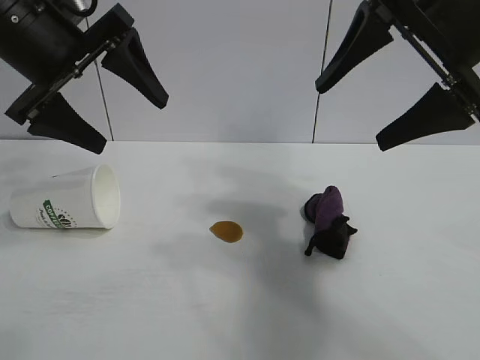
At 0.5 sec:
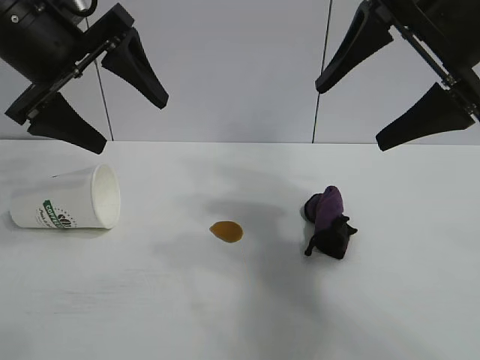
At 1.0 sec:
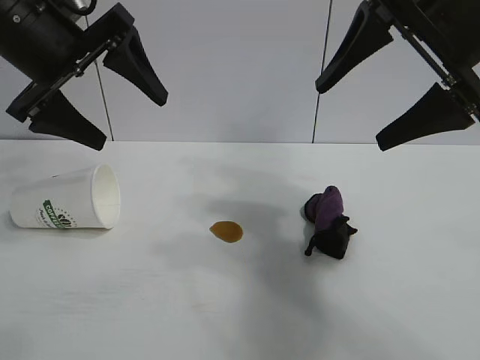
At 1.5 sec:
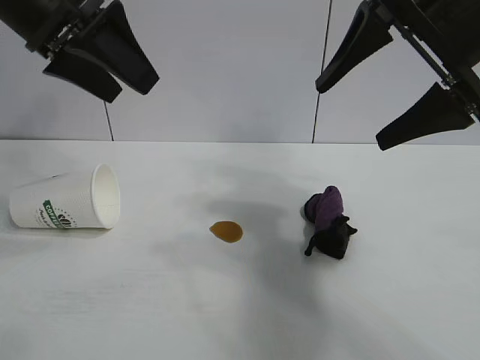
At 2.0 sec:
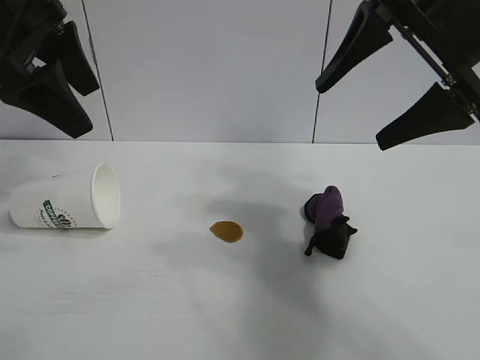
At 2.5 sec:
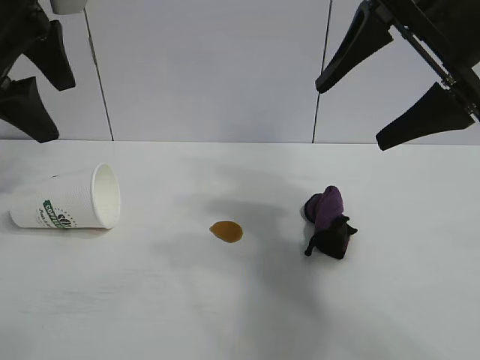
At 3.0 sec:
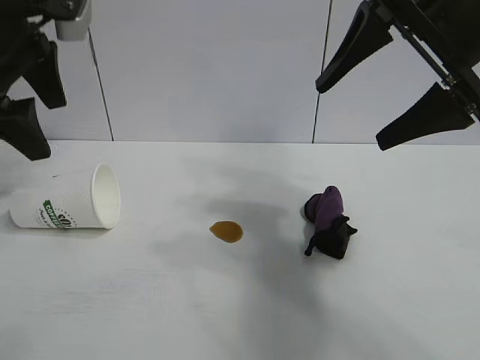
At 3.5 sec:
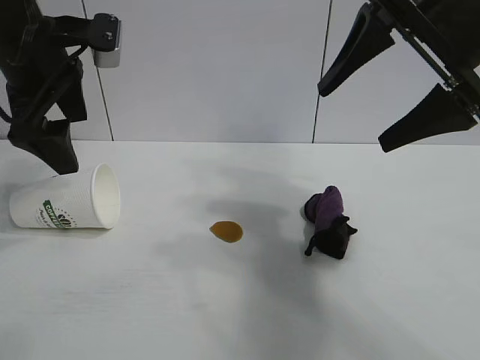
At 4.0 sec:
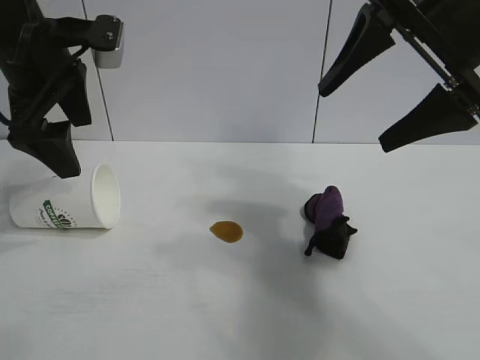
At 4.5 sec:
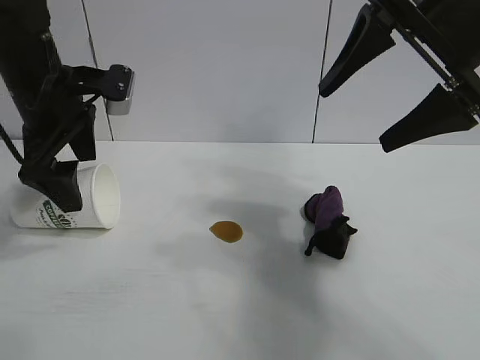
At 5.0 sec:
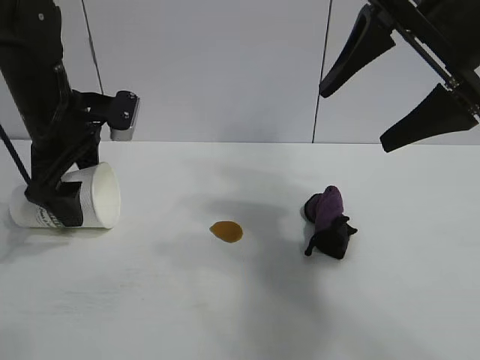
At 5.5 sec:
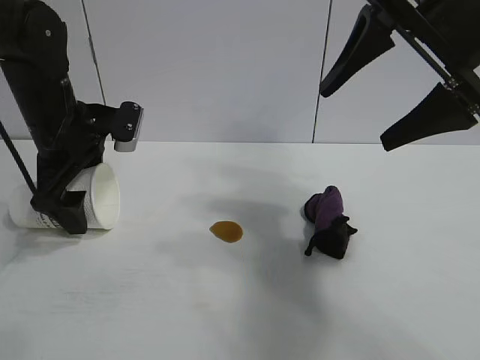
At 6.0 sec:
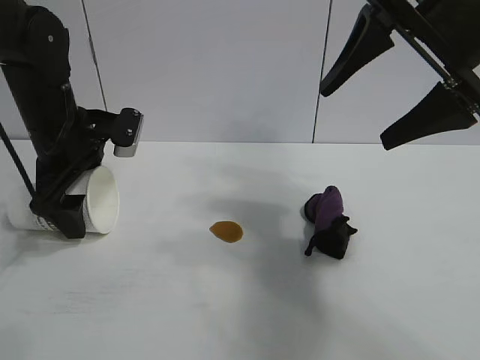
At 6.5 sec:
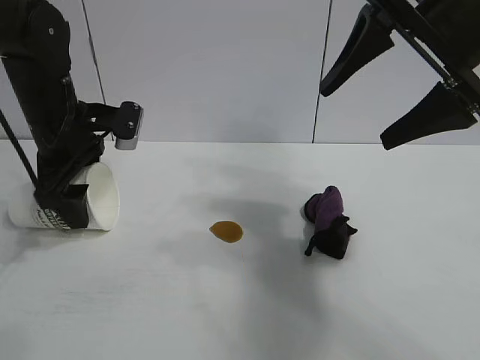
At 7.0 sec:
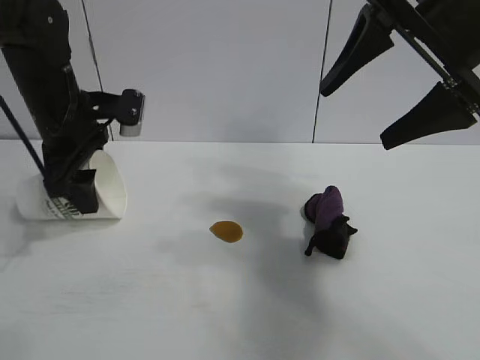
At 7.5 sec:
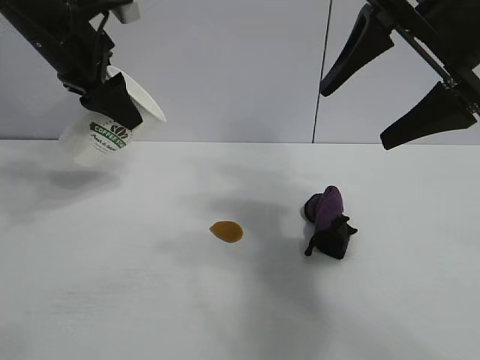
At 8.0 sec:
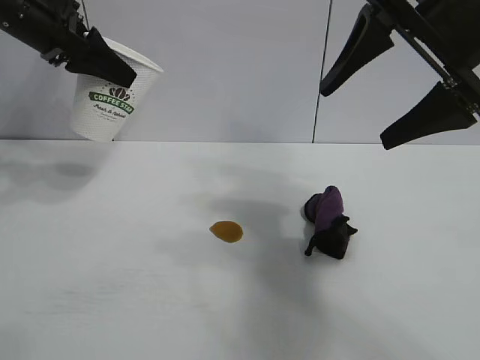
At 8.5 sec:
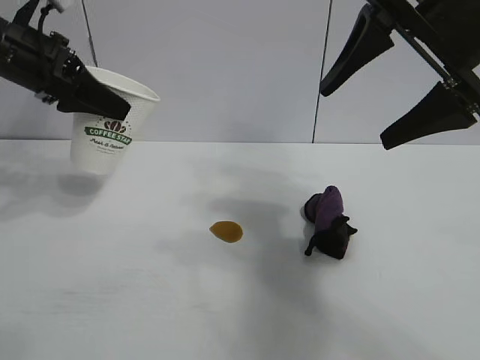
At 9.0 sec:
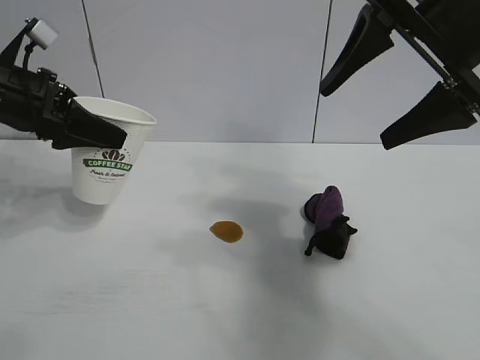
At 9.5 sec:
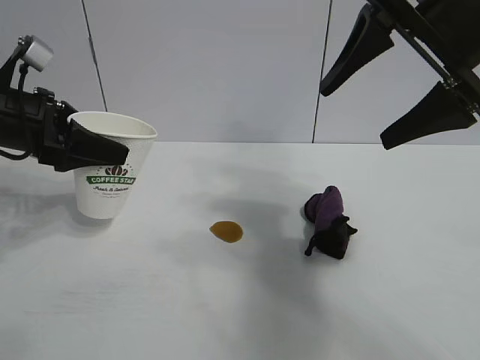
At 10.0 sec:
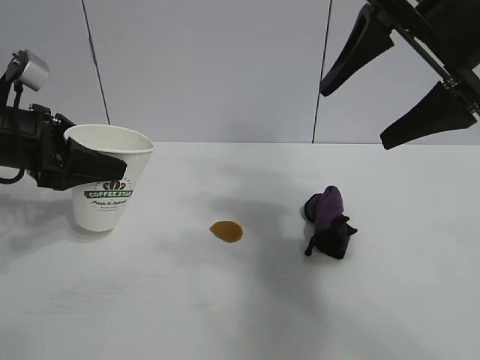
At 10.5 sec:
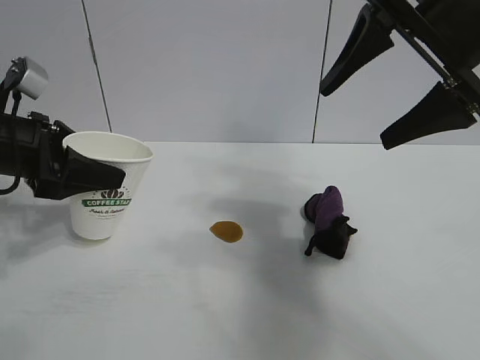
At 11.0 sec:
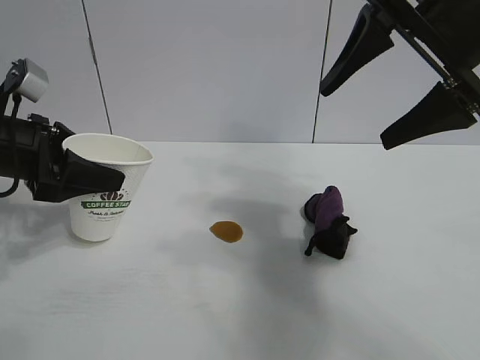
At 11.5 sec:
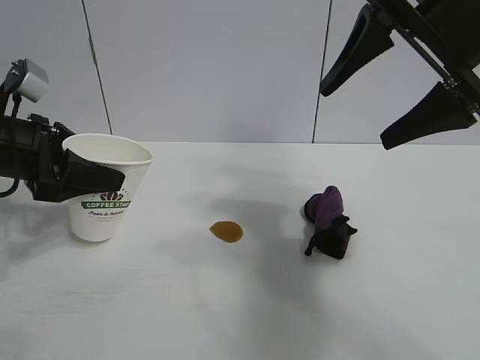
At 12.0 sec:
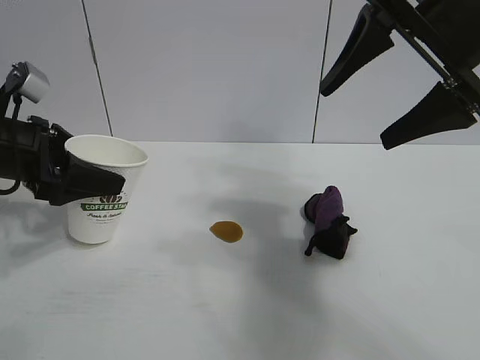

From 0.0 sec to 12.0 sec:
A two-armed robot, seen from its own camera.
Task of the whole recording: the left gripper pick up the fallen cup and place it upright, the right gripper grasp the black rag and wipe the stain on the table, the right gripper put the black rag back in its original position.
Step, from 1.0 sec to 6.5 sec: Grasp the paper cup with left gripper.

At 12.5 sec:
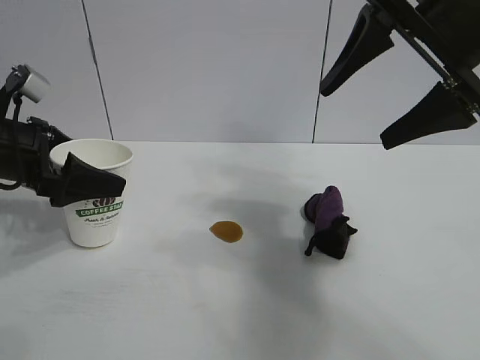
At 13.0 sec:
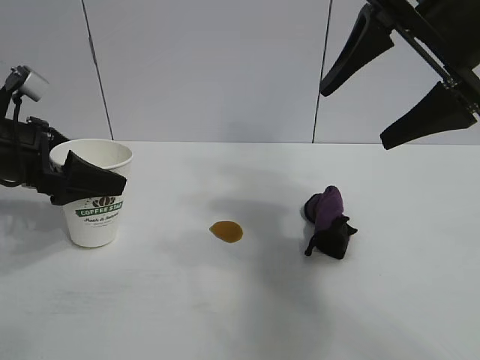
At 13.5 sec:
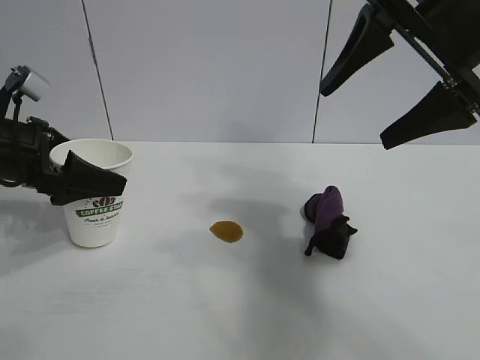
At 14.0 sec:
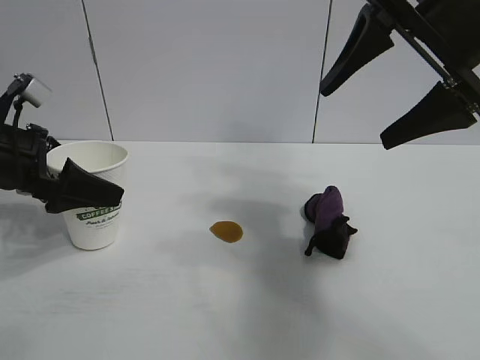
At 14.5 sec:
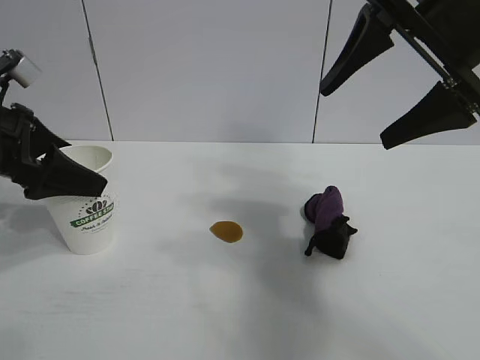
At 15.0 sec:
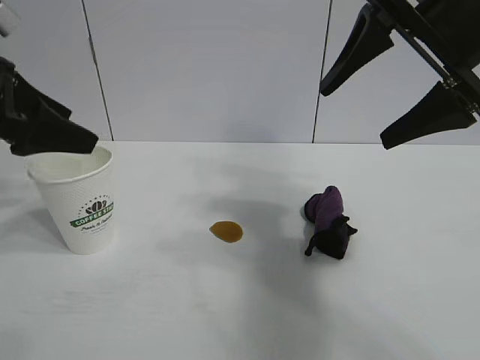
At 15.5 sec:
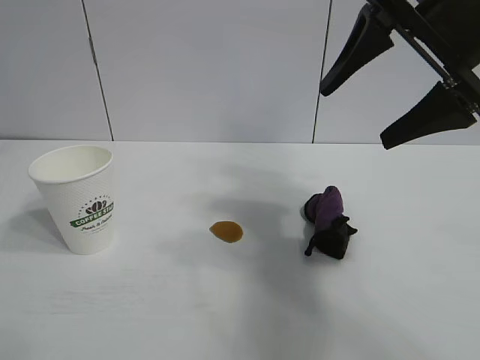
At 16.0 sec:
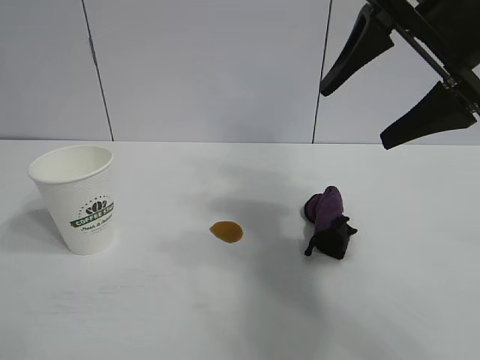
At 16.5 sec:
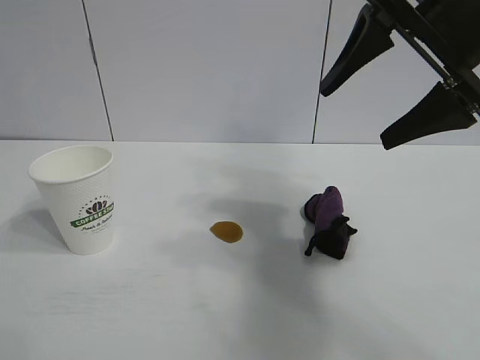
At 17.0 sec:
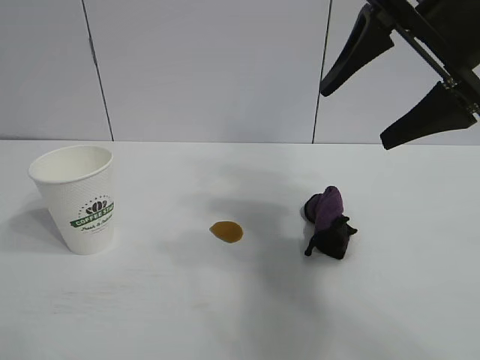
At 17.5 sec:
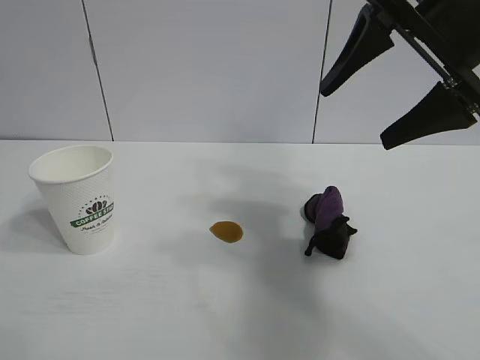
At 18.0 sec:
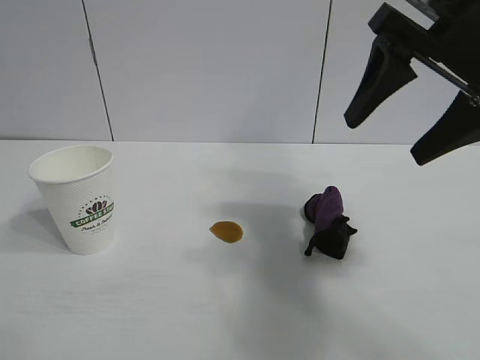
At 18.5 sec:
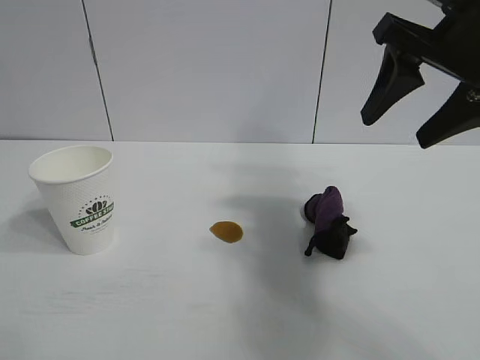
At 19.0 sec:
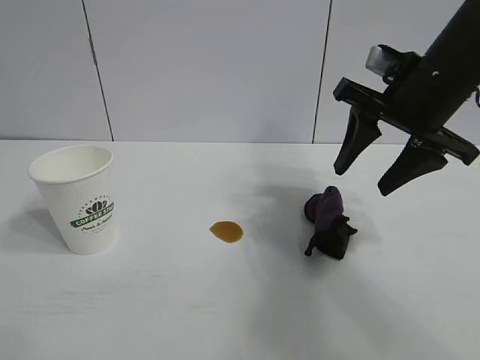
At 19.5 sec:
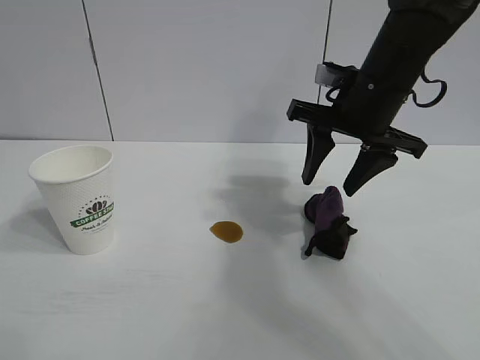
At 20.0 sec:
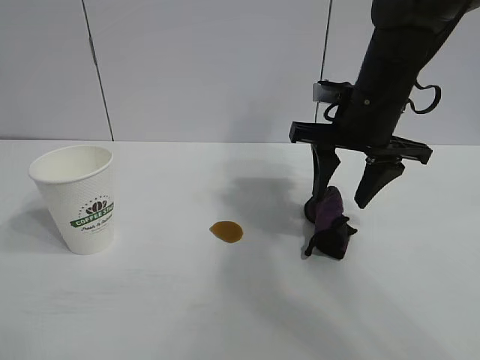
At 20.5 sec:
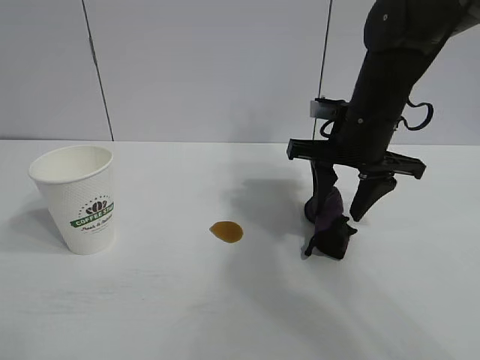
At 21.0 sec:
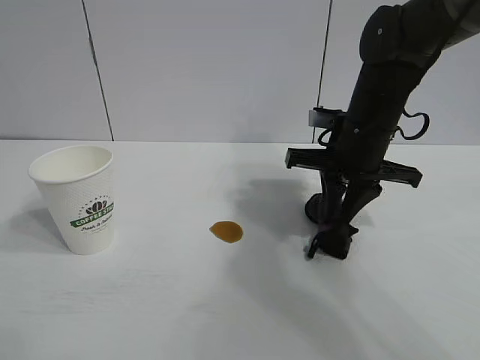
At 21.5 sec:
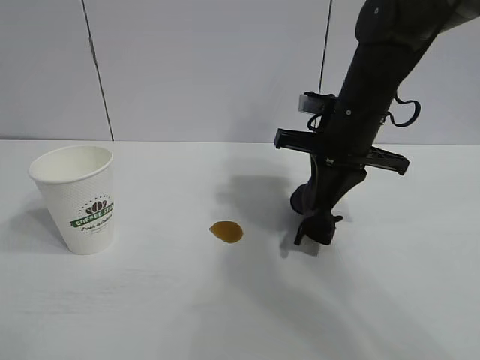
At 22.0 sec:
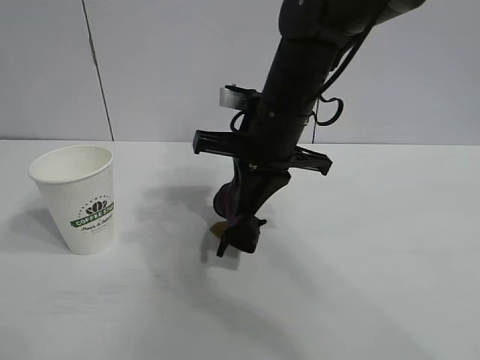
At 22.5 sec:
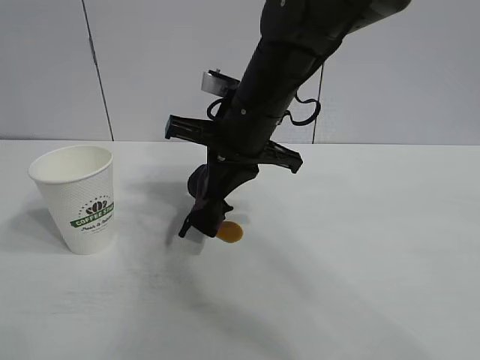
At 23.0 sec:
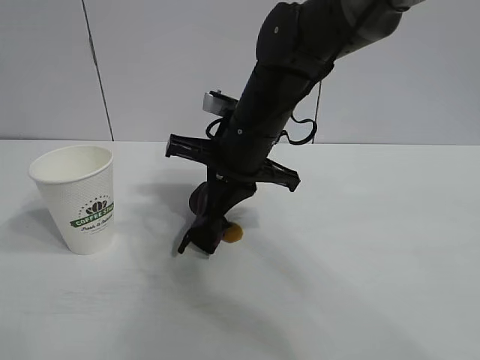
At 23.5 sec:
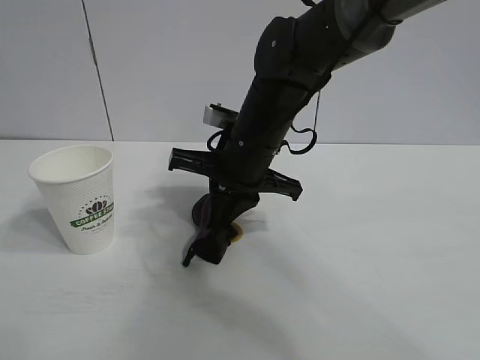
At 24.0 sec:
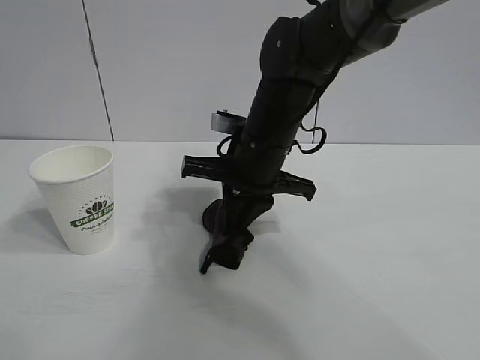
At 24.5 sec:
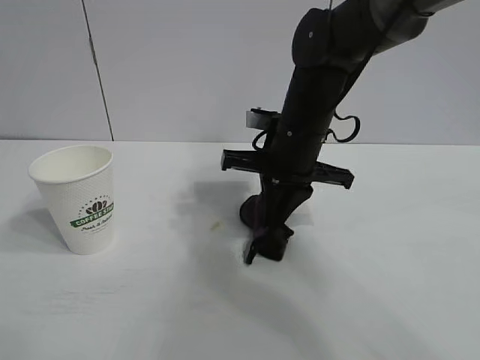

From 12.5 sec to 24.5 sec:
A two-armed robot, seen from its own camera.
Task of the whole recording: the left gripper pick up the fallen cup and place it upright, the right gripper grasp the black rag and wipe the stain on the table, the right gripper put the black rag back in its original position.
Step, from 14.5 sec to 21.0 sec: Grasp the rag with right gripper.

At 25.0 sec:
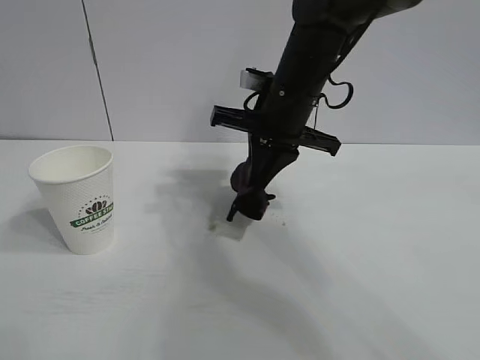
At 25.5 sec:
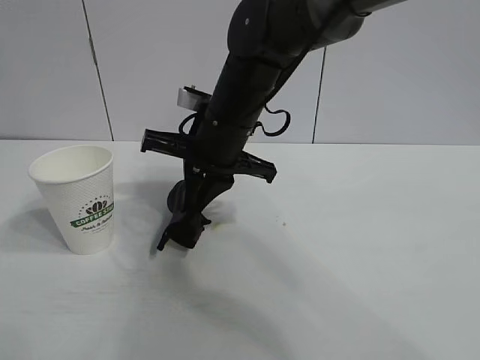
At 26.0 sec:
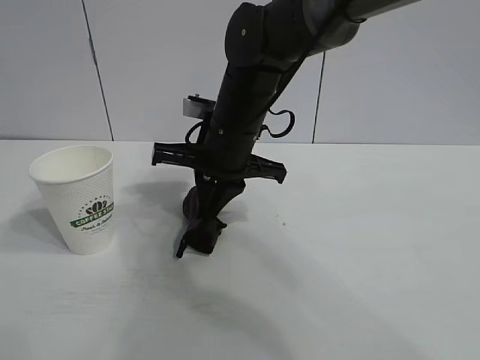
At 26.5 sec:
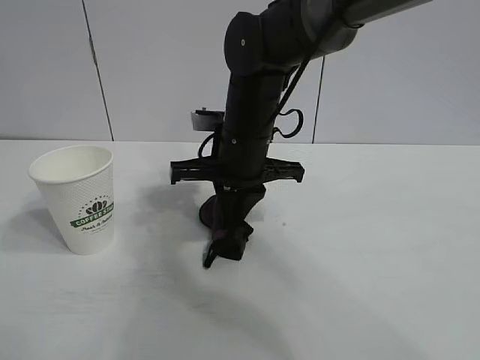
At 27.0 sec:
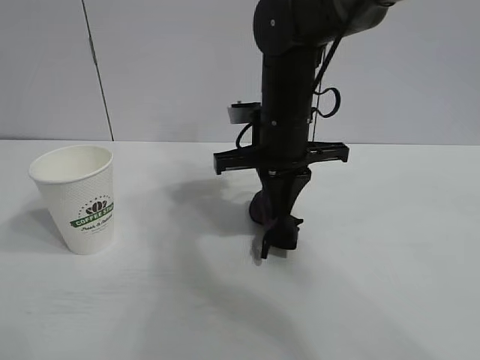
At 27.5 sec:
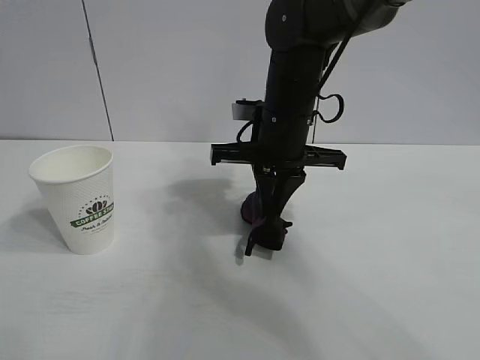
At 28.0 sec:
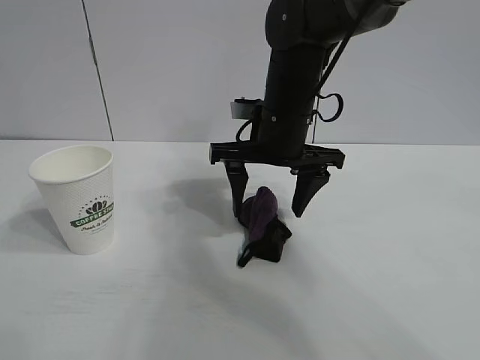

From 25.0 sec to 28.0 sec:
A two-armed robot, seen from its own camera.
Task of the whole recording: the left gripper pick up the fallen cup and place it upright, the right gripper grasp the black rag and wipe the stain on the table, the right gripper put the black rag back in its original position.
Step, from 27.0 sec to 27.5 sec: Place the rag on the table with right gripper.
